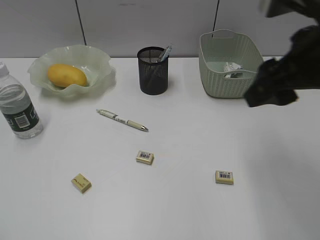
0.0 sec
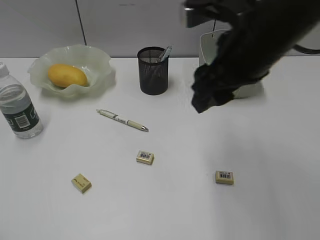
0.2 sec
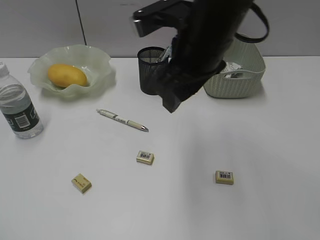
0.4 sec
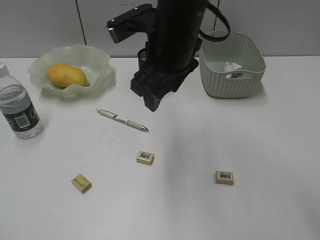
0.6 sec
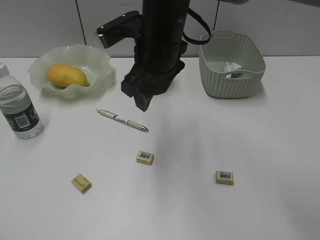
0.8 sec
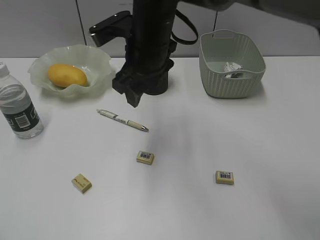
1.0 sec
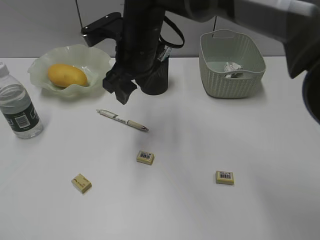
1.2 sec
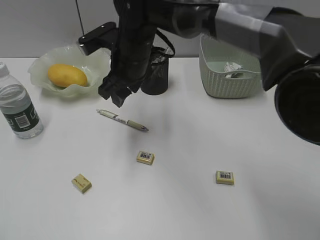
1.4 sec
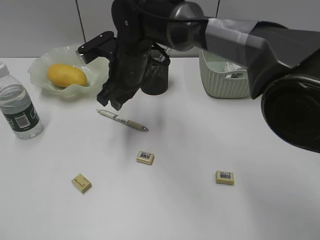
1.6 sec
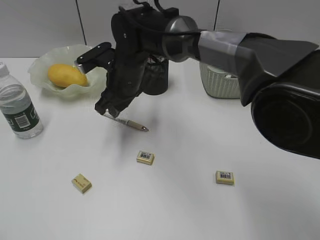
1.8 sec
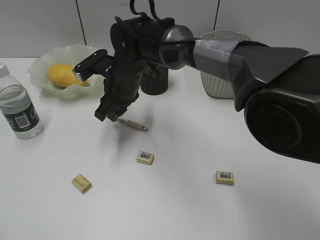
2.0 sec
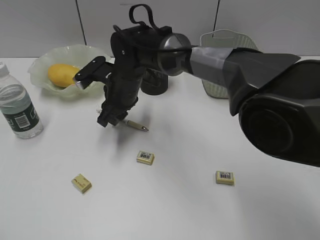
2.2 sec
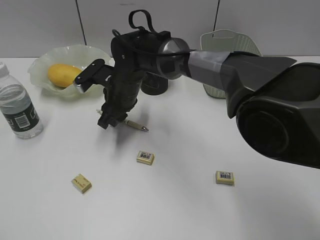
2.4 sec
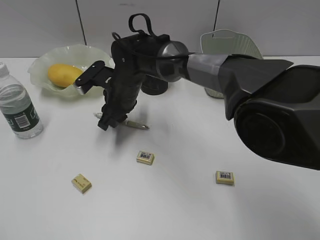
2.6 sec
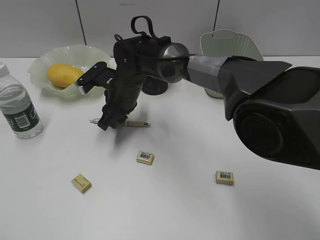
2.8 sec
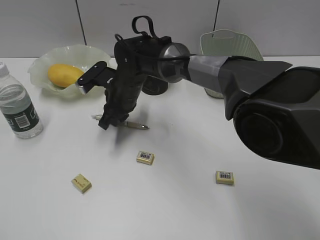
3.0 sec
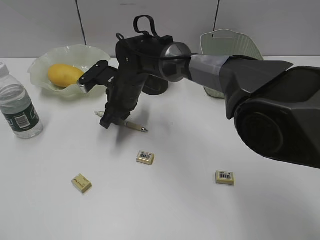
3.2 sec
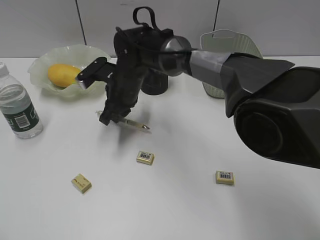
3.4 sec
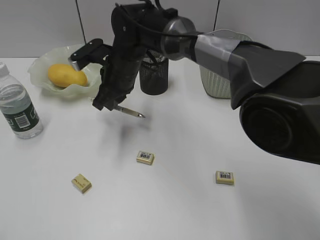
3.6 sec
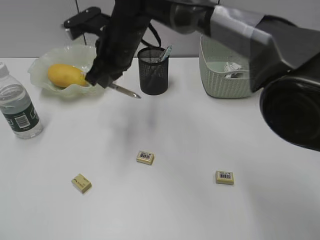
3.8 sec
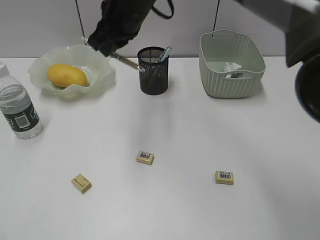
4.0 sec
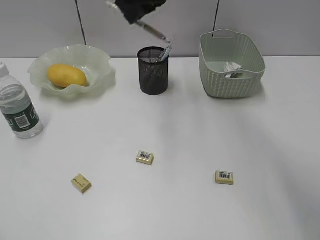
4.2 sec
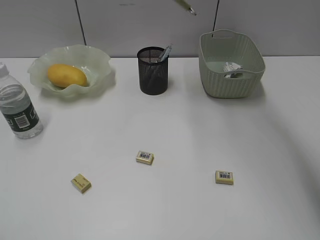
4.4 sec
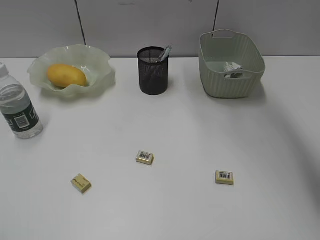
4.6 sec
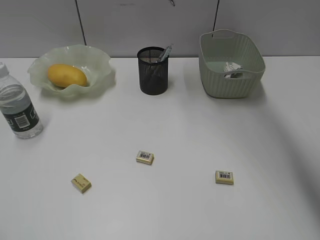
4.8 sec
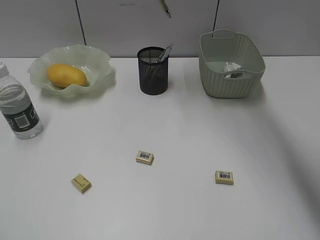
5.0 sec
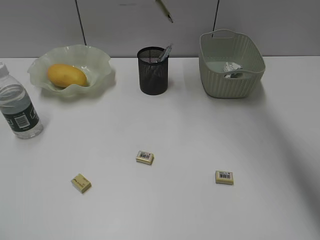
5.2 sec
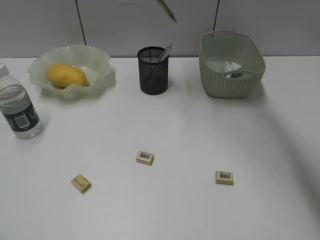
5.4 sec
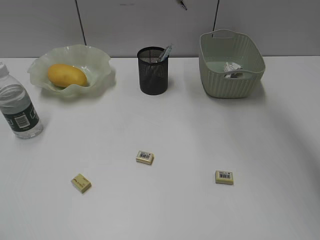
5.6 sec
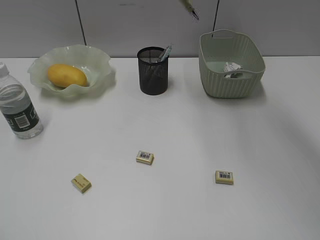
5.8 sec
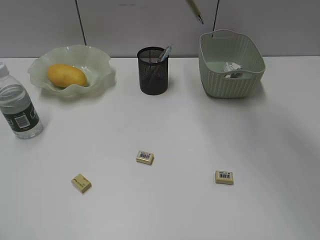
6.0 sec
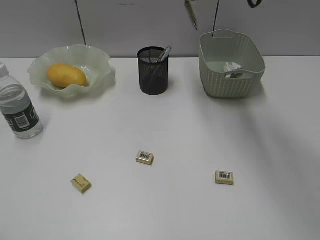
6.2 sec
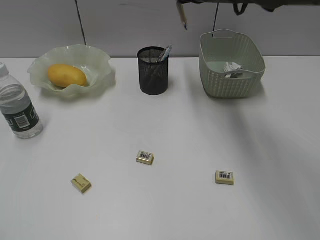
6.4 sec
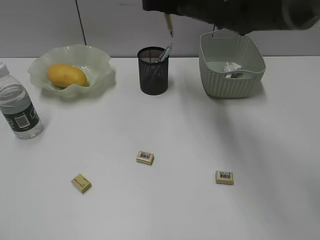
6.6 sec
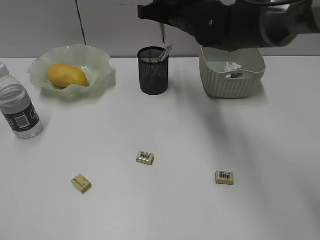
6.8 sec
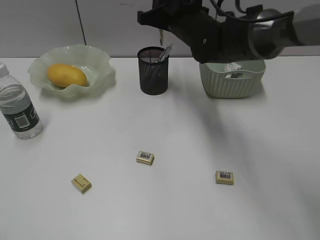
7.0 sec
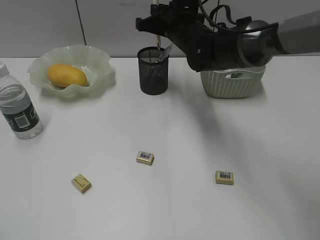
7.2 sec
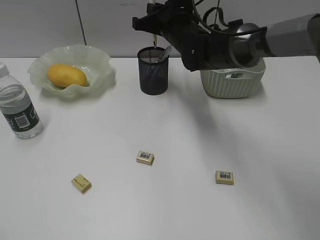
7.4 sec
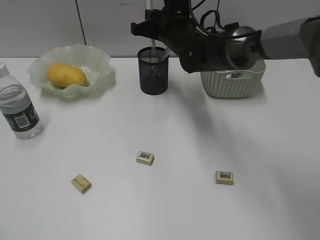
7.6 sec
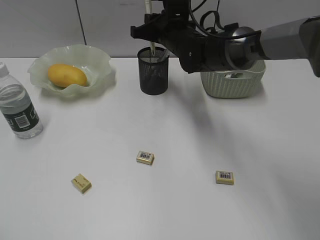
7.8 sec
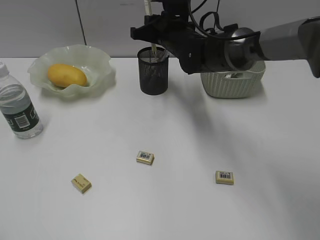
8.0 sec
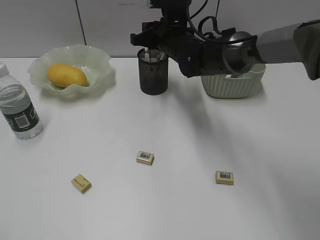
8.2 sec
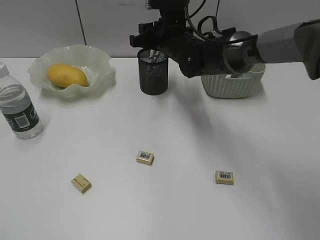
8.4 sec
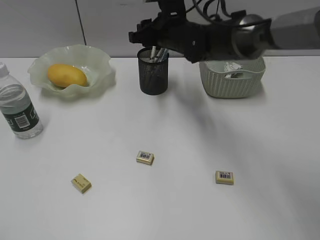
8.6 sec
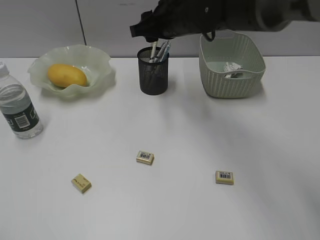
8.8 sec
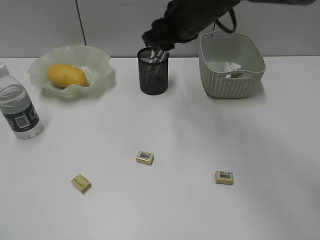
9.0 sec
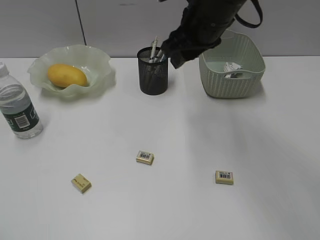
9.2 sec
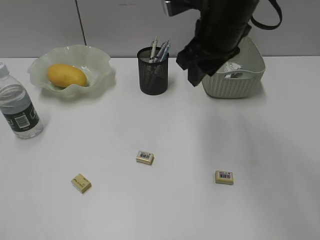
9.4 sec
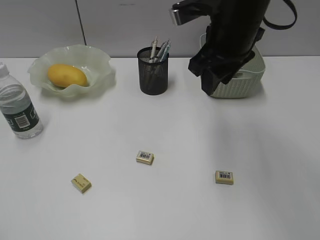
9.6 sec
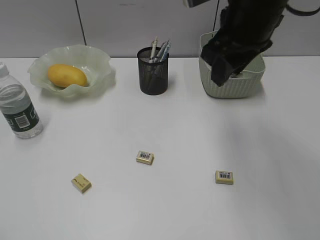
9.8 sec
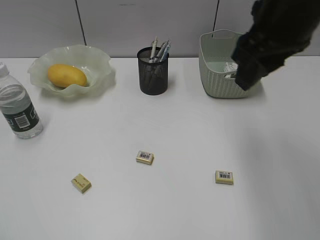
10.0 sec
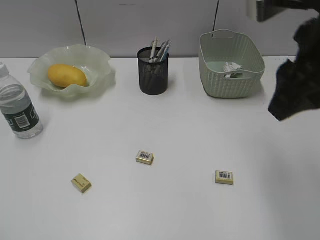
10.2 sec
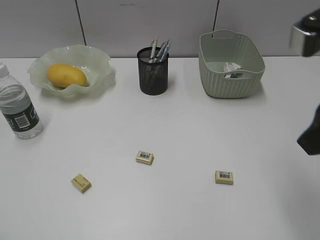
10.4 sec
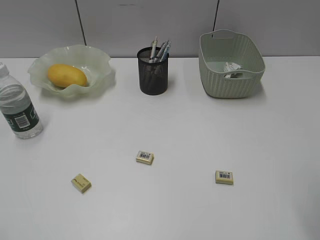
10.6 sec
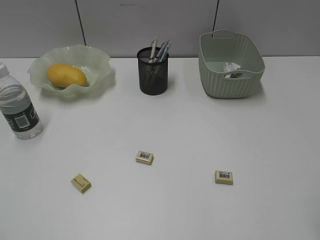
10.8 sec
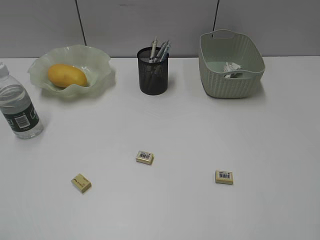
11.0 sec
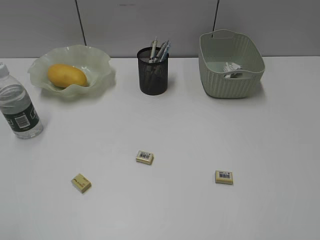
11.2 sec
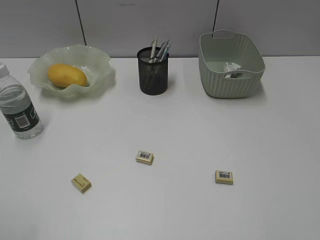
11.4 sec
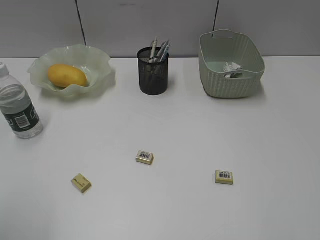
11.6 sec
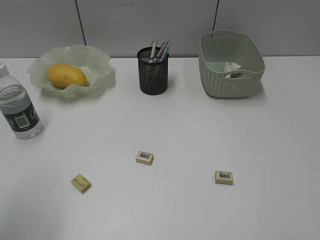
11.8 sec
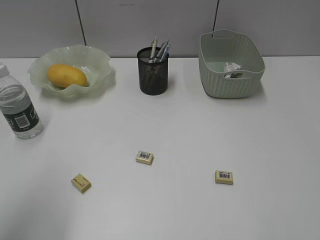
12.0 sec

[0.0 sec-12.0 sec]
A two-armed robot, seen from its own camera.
Step, 0.0 sec to 3.2 sec: Grasp the yellow pen with right gripper.
Step, 3.4 sec to 8.4 sec: Place the yellow pen in pen holder with right gripper.
0.0 sec to 1.6 sec: The right gripper moves to the left, forward and downward, approximately 30 cm.
1.6 sec to 3.0 sec: The right gripper goes roughly 5 cm downward, and closes.
3.0 sec to 4.4 sec: The right gripper heads upward and to the right, covering some 30 cm.
6.0 sec to 7.6 sec: The right gripper shifts some 20 cm downward and to the left.
7.6 sec to 9.0 sec: The right gripper travels upward and backward by some 10 cm, and opens its fingers.
9.0 sec to 10.4 sec: The right gripper moves backward and to the right, roughly 25 cm.
10.4 sec to 12.0 sec: The right gripper goes roughly 15 cm backward and to the right, and opens. The left gripper heads forward, covering approximately 15 cm, and opens.

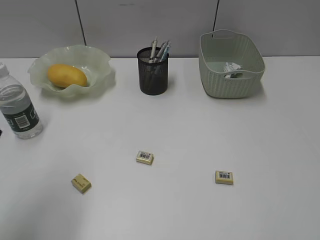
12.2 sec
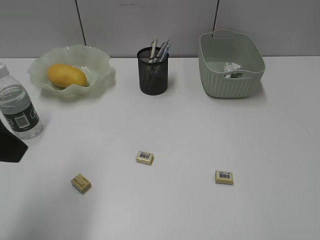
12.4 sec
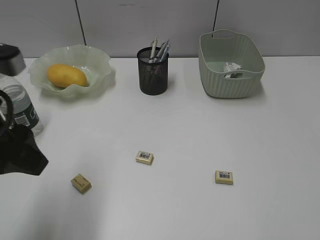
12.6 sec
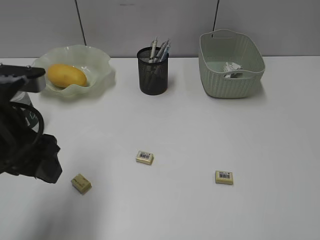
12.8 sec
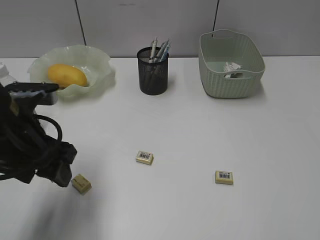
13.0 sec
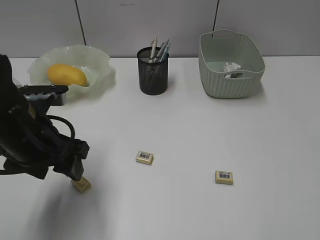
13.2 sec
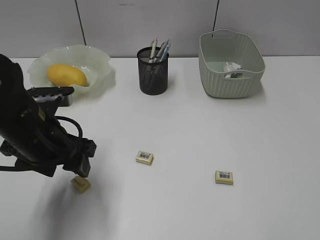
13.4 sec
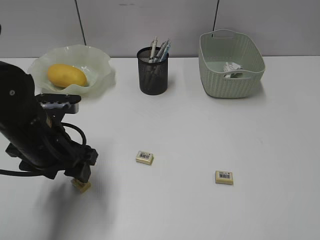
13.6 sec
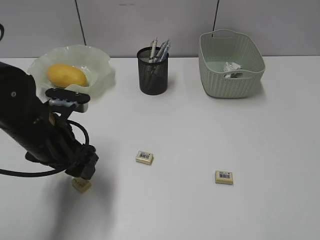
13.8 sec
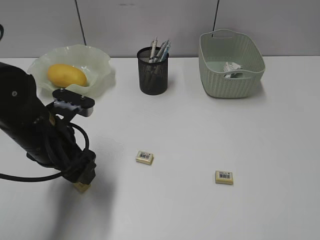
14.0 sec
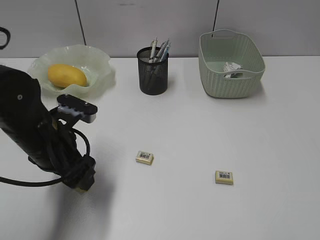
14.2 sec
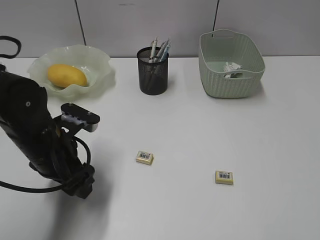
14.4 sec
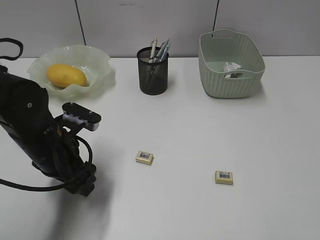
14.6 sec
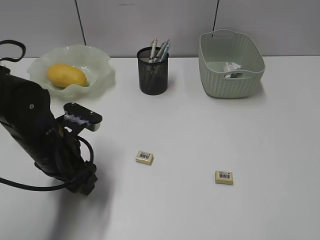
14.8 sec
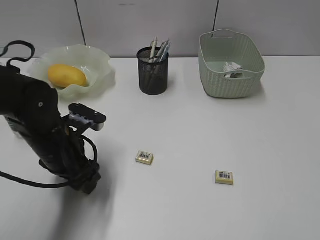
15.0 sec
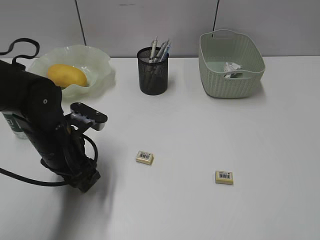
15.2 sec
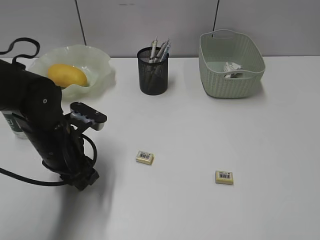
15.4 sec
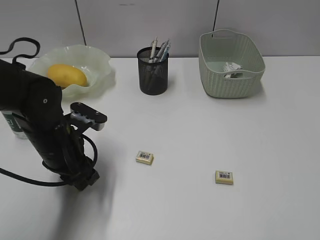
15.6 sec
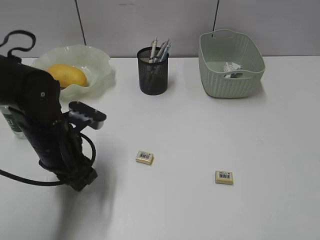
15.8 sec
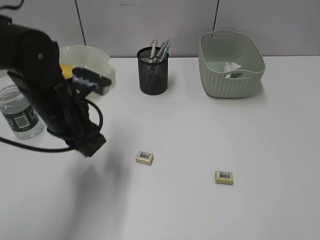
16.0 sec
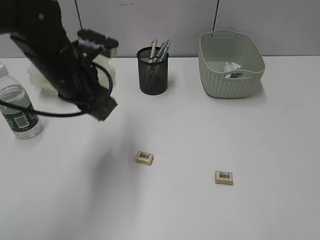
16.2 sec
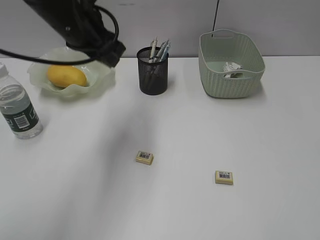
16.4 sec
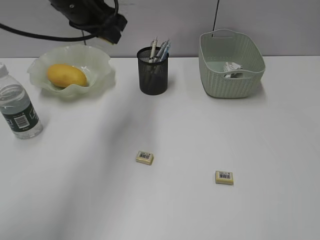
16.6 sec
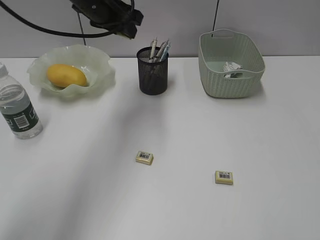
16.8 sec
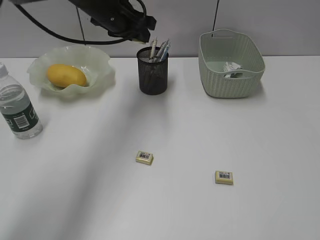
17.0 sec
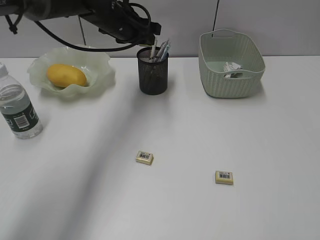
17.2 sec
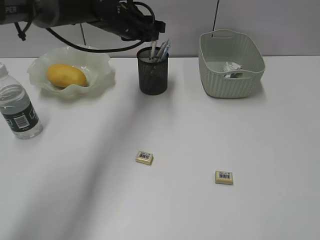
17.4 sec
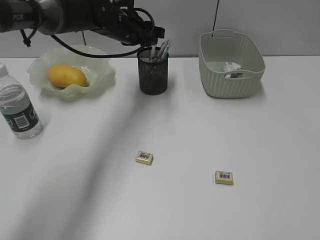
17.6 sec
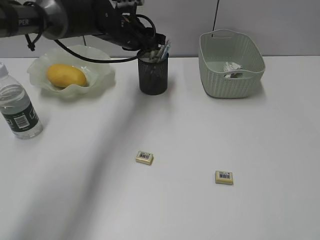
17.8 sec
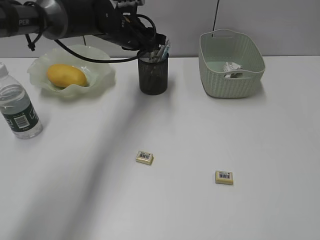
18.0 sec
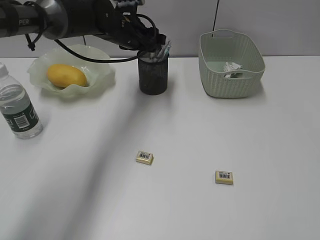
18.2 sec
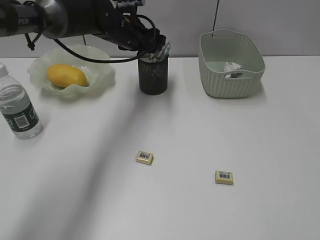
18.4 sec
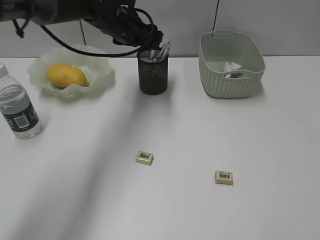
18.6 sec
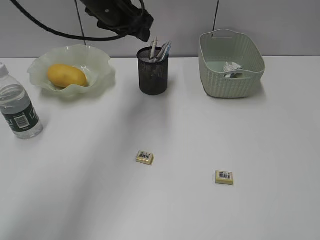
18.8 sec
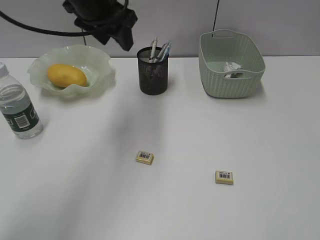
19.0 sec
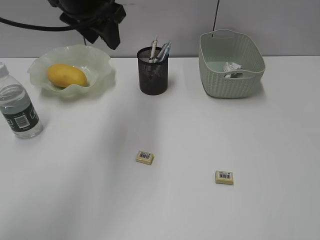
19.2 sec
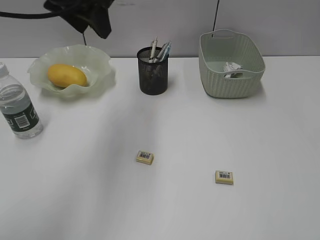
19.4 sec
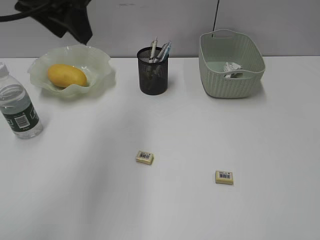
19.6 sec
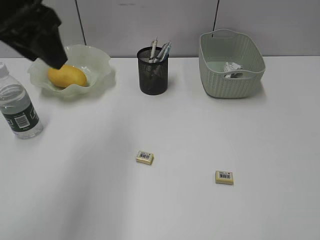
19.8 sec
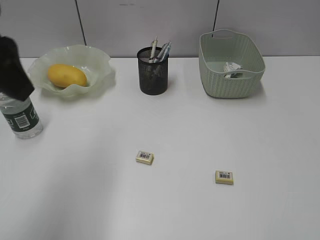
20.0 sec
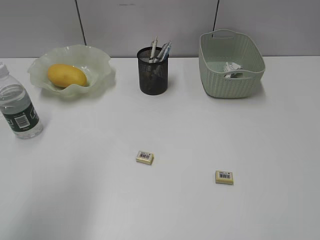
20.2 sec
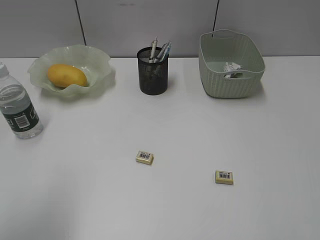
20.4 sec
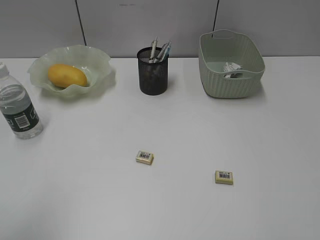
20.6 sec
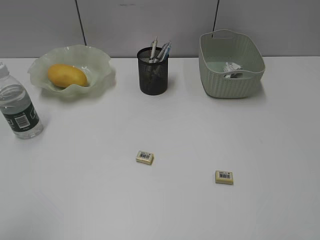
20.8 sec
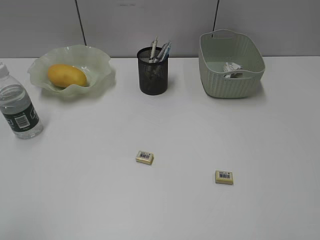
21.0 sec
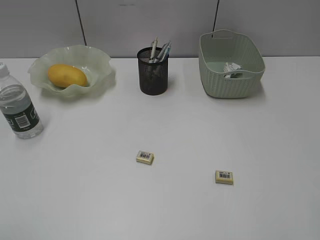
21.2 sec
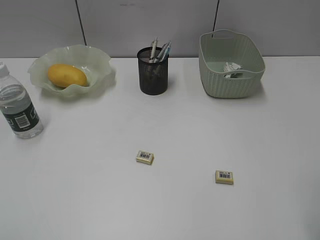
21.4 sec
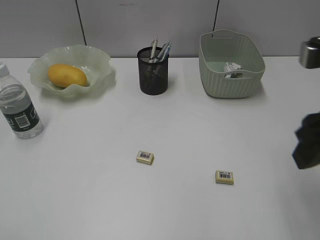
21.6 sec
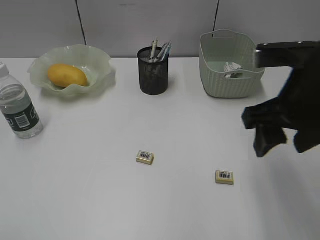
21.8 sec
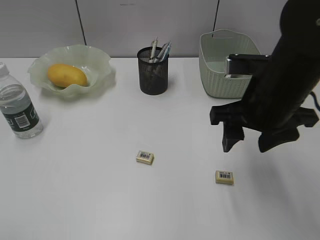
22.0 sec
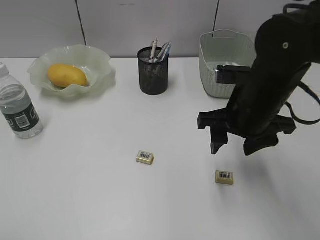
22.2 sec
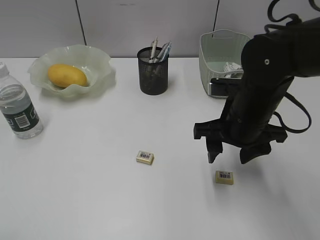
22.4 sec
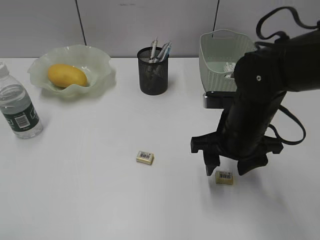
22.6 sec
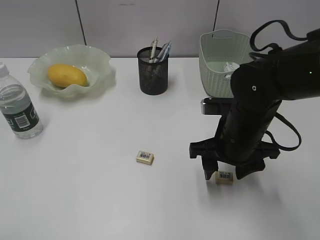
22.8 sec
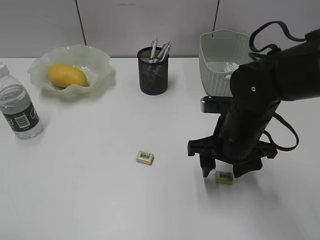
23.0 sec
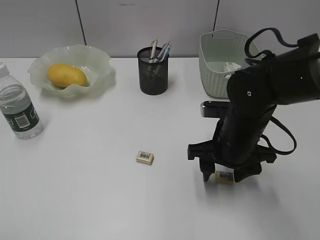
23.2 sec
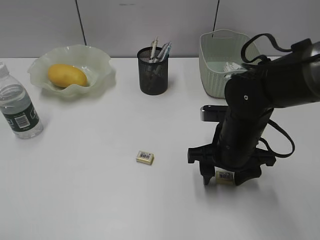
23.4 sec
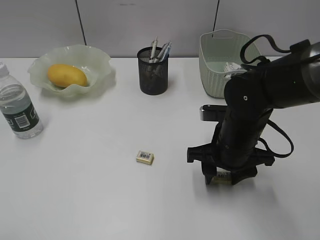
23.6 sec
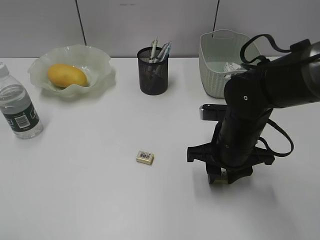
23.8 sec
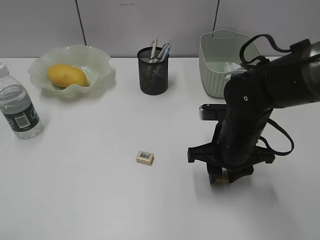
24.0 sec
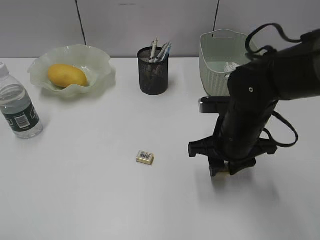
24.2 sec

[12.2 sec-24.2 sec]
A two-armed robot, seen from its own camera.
Step, 12.2 sec to 15.4 sec: Grasp the eraser with left gripper.
Step, 15.6 sec to 18.6 sec: Place the eraser in pen holder with left gripper.
Step, 18.8 sec to 23.8 sec: Grasp the eraser with right gripper.
12.2 sec to 13.8 sec: The left gripper moves downward, forward and to the right, some 20 cm.
13.8 sec to 15.2 sec: The grippers make only small movements.
15.2 sec to 16.6 sec: The left gripper goes about 20 cm upward and forward.
16.6 sec to 18.2 sec: The left gripper goes about 15 cm downward, forward and to the right.
18.2 sec to 19.8 sec: The left gripper heads backward, upward and to the left, covering some 30 cm.
19.8 sec to 21.2 sec: The left gripper shifts roughly 30 cm backward and to the left.
21.2 sec to 22.6 sec: The right gripper travels forward, to the left and downward by roughly 30 cm.
22.6 sec to 24.2 sec: The right gripper closes its fingers.
